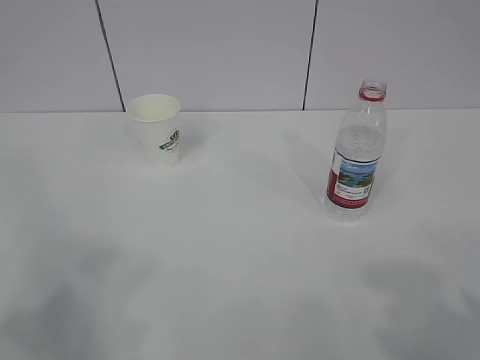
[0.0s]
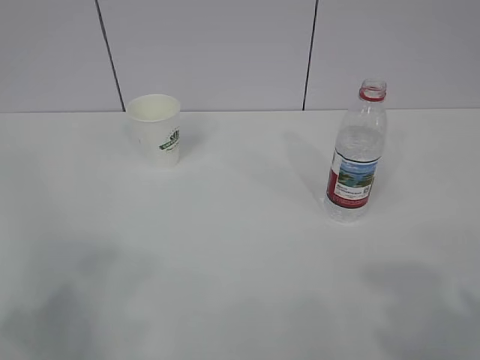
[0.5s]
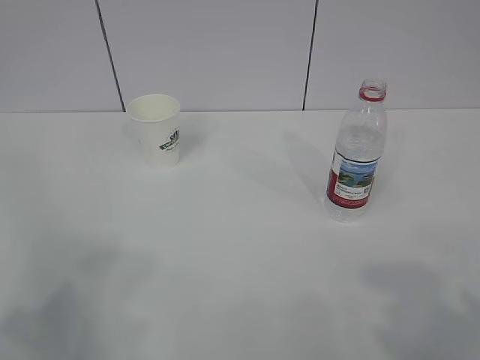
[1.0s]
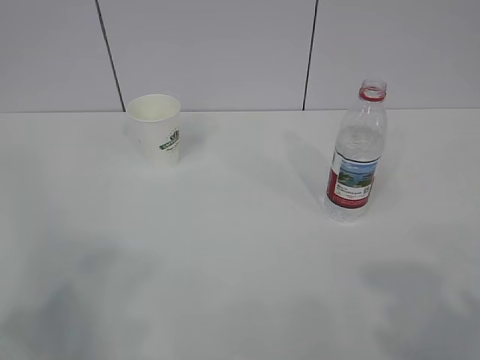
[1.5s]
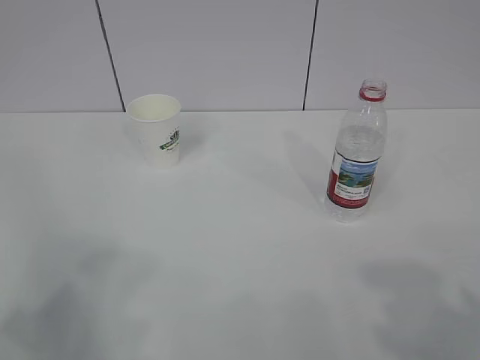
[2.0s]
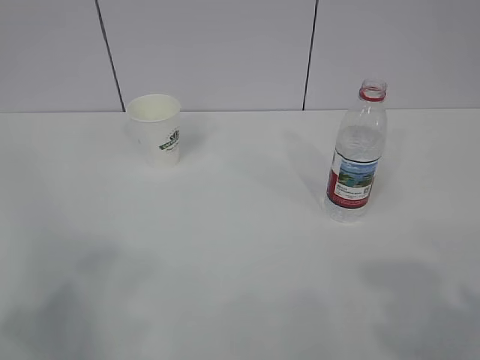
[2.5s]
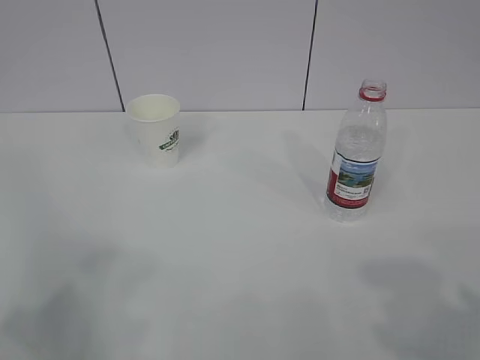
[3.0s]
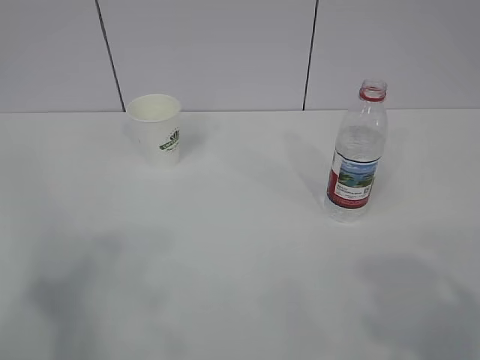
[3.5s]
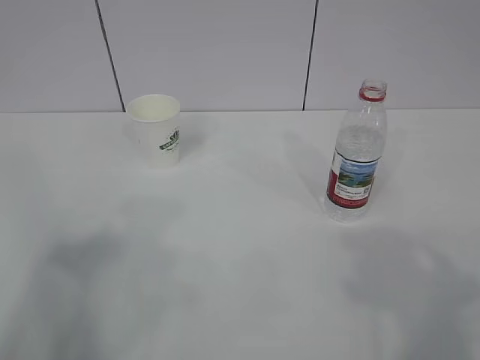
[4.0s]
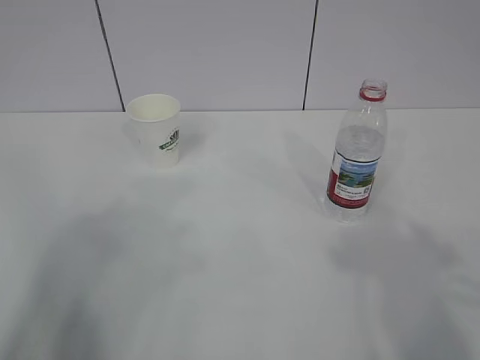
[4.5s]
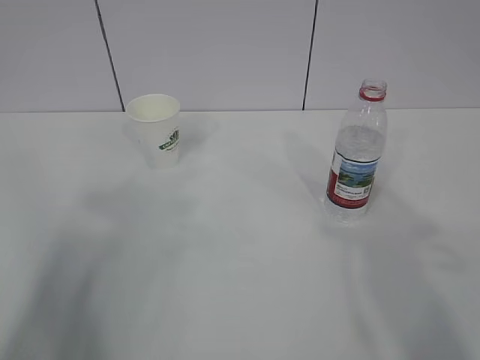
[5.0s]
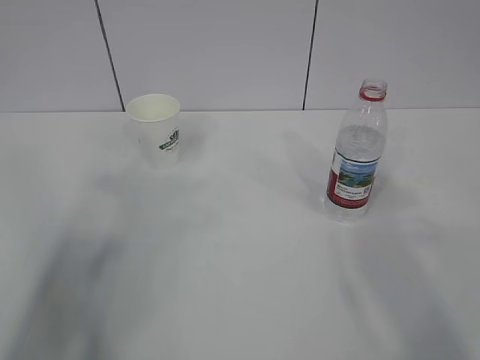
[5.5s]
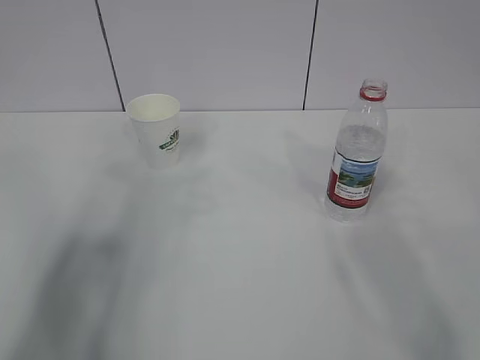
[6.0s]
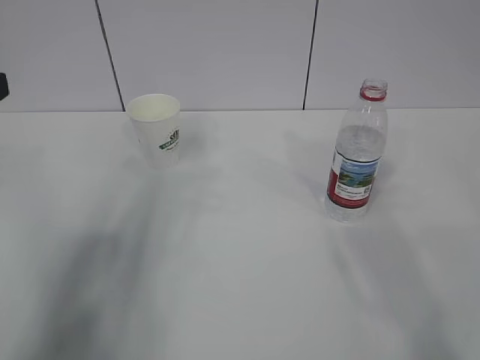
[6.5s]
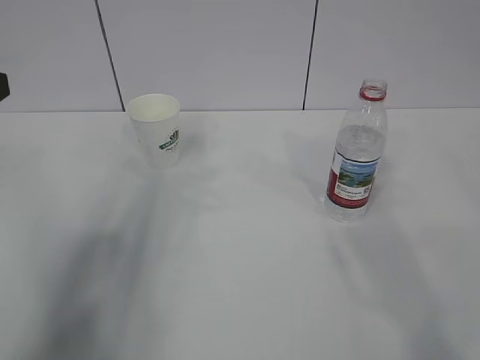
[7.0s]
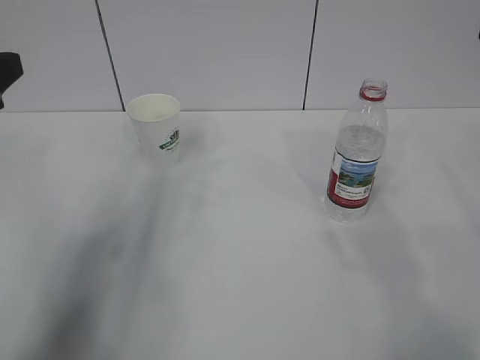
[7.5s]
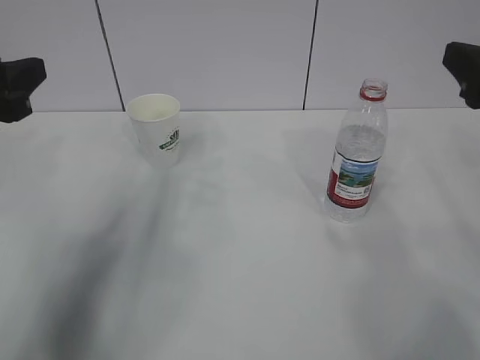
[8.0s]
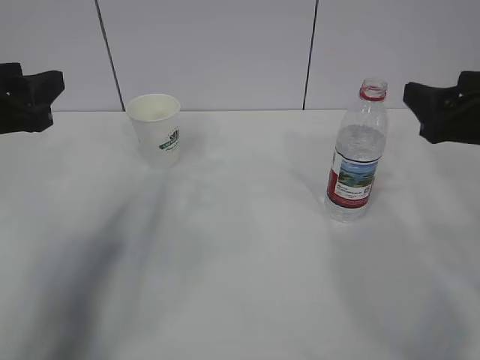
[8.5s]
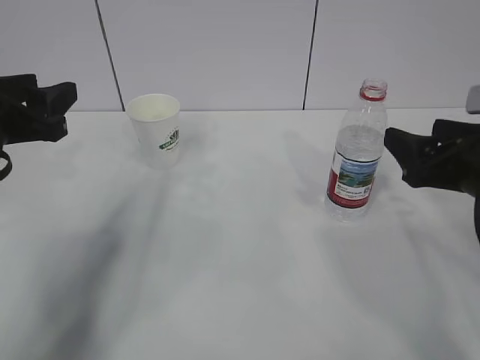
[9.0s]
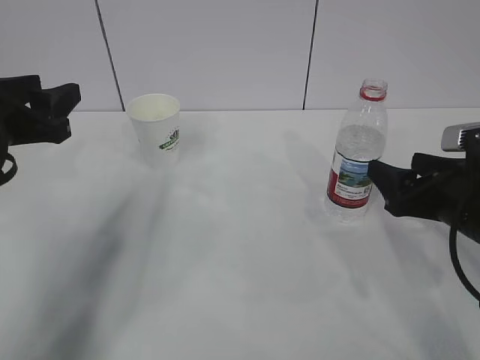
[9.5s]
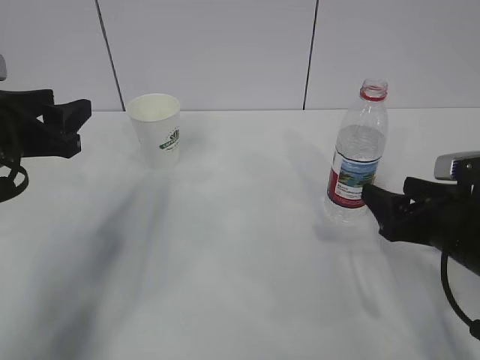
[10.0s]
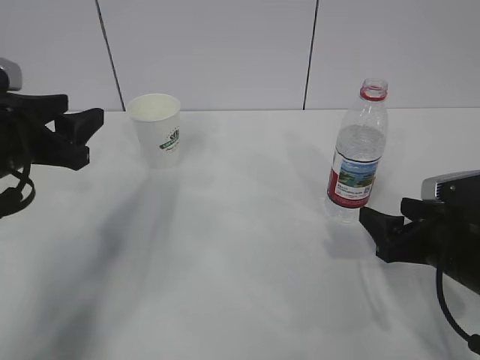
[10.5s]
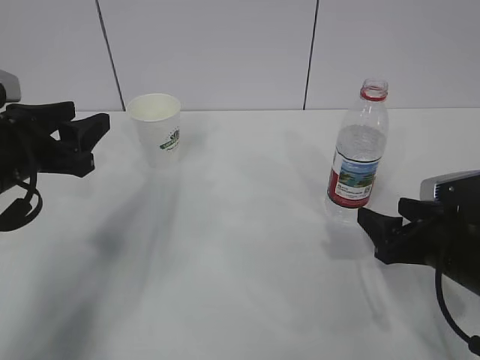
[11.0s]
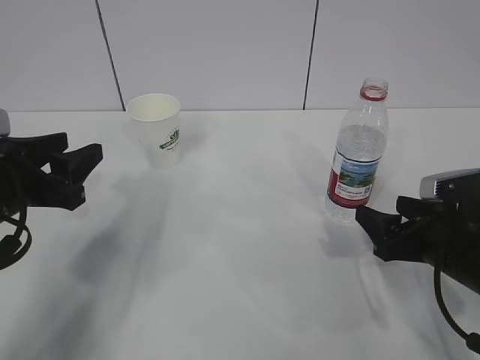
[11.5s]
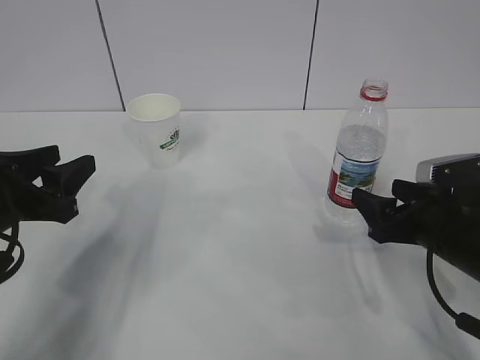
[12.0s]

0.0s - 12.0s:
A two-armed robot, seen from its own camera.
4.0s - 6.0s: The left gripper travels forward by about 15 cm, and opens.
6.0s - 8.0s: Both grippers move forward, some 10 cm.
8.0s - 10.0s: The right gripper is displaced downward by approximately 15 cm. Meanwhile the left gripper is displaced downward by approximately 5 cm.
10.0s - 12.0s: The left gripper moves about 5 cm.

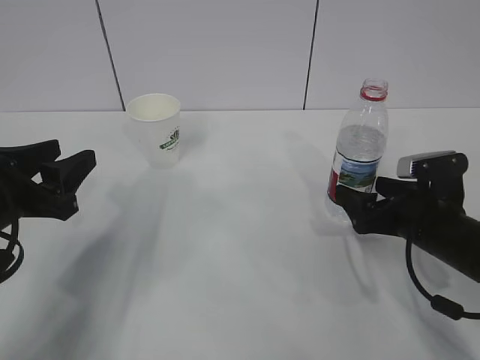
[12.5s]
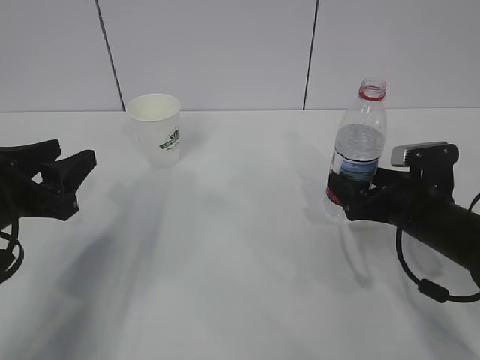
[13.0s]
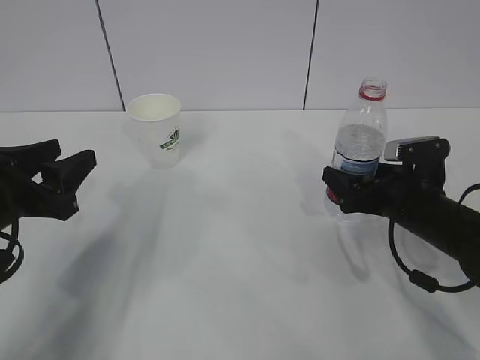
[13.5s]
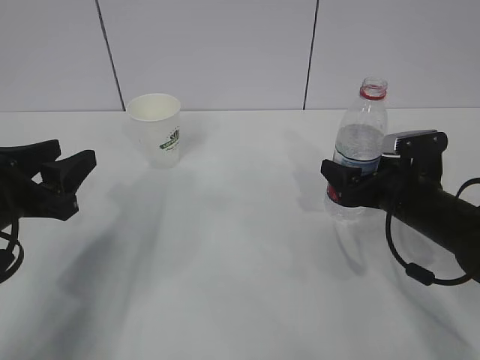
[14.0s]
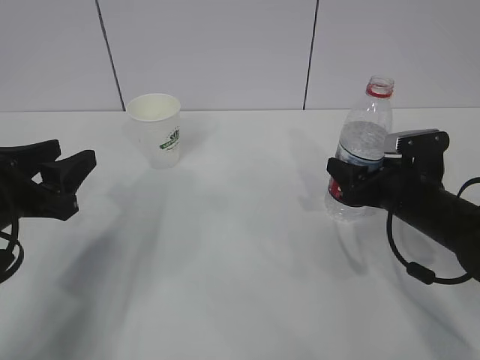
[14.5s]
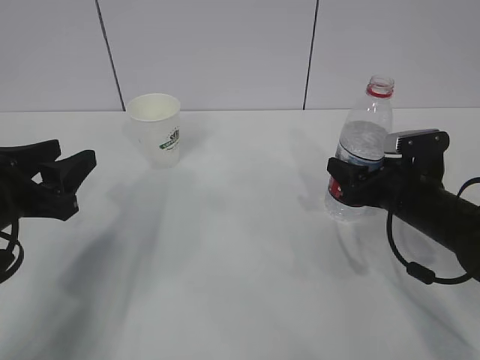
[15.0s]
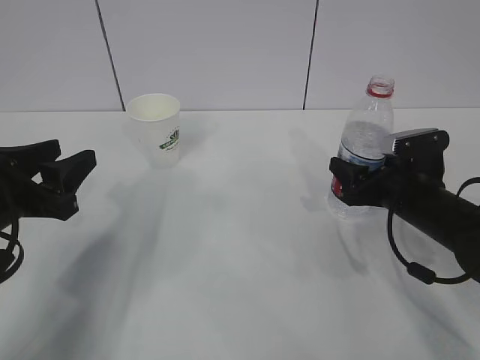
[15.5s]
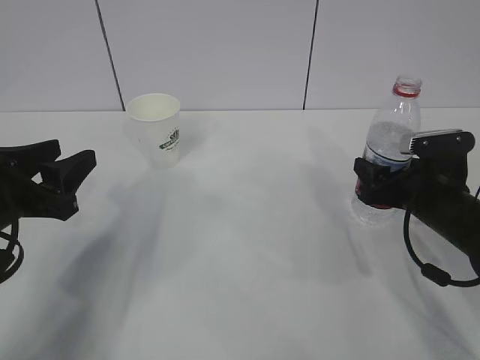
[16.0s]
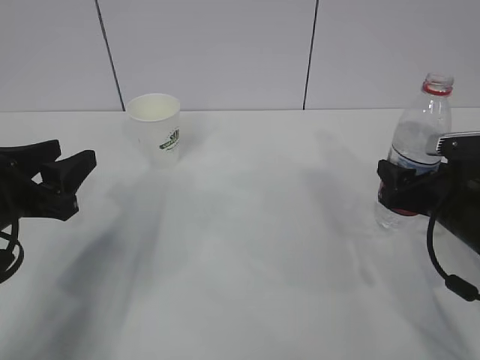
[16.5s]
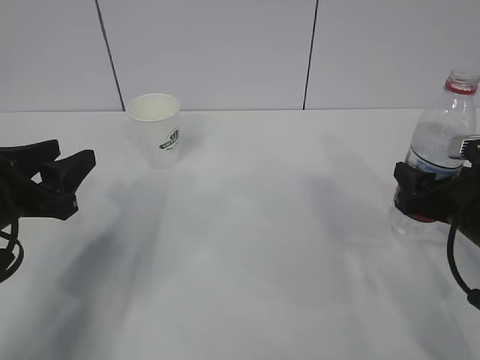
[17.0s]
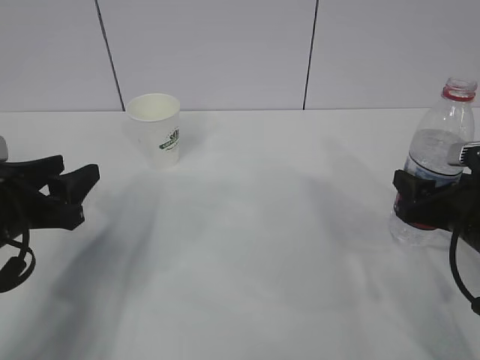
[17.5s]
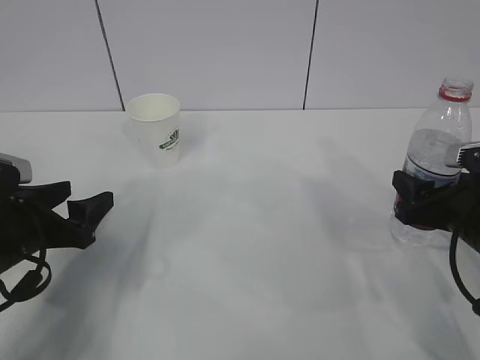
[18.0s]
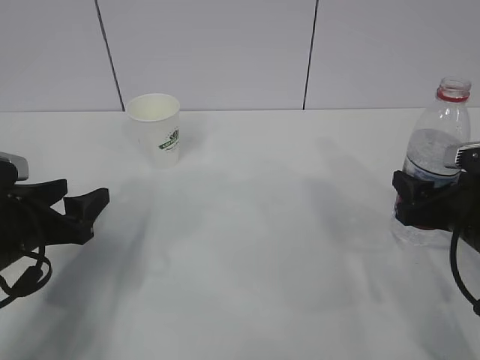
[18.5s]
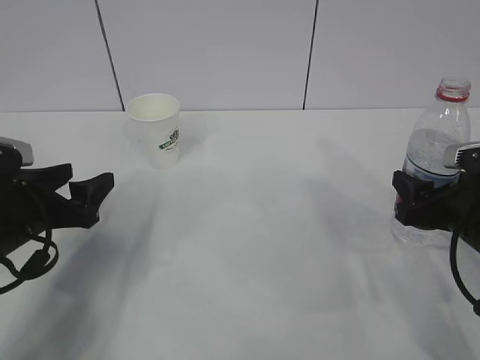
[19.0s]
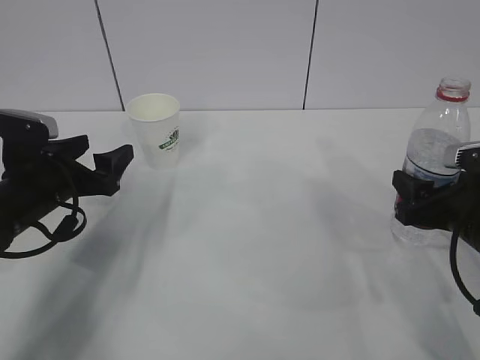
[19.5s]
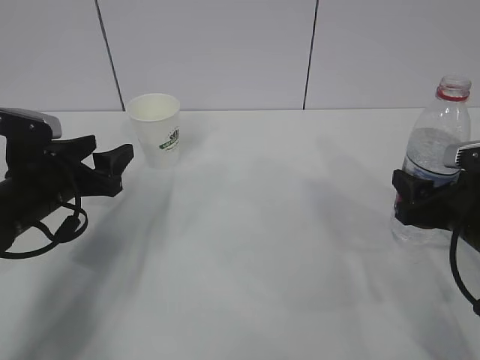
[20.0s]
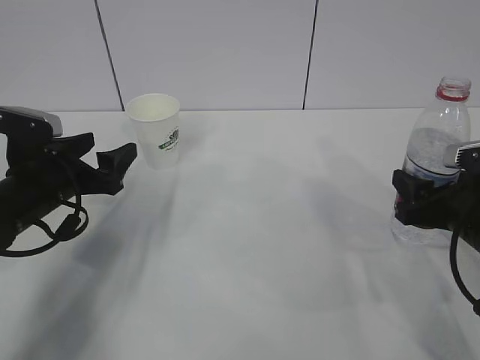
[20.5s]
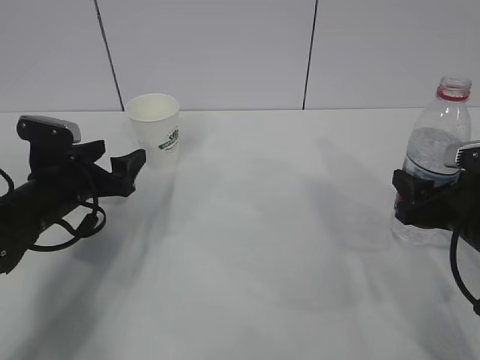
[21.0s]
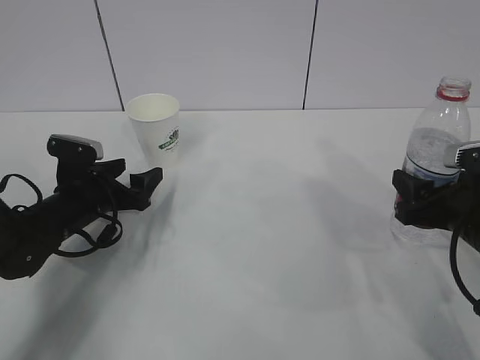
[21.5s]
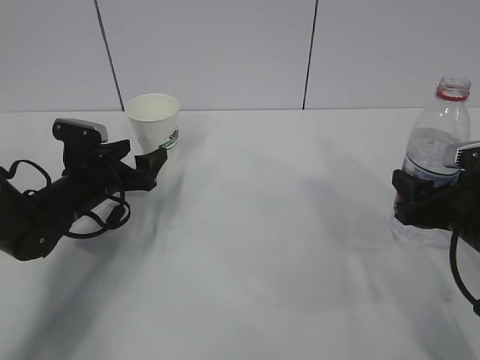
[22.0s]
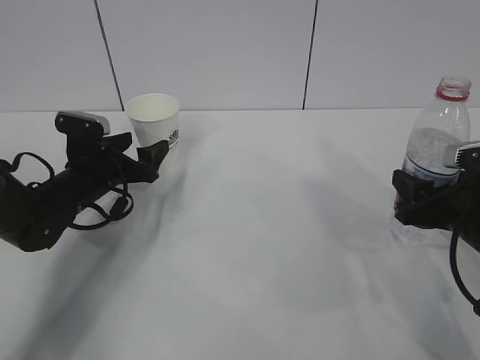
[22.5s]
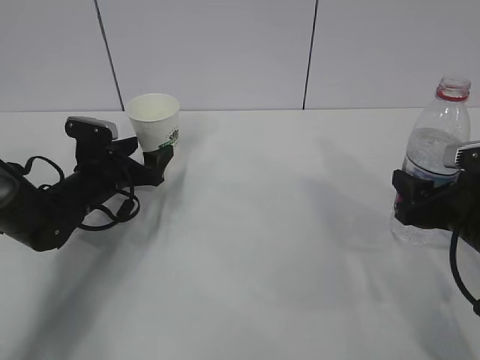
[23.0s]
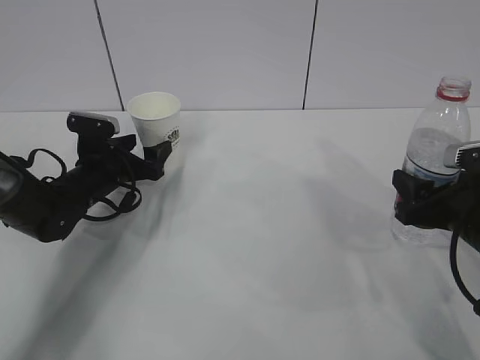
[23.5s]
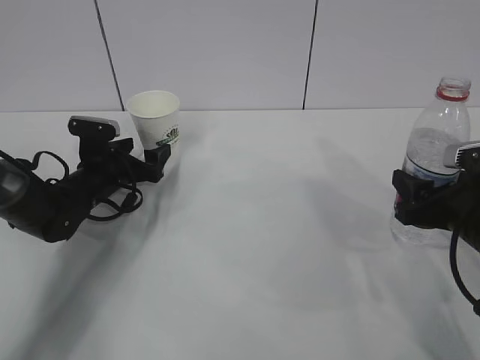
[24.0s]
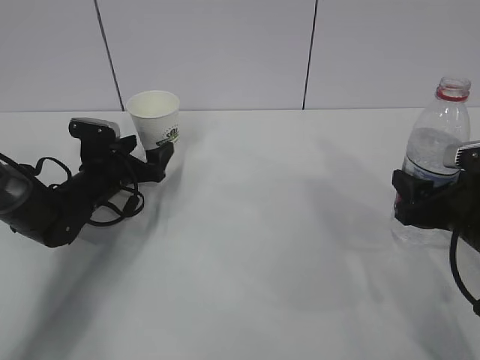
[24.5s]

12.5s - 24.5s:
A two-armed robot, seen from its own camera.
12.5s - 14.5s: The right gripper closes its fingers.
14.5s - 16.5s: The right gripper moves roughly 5 cm.
16.5s - 18.5s: The left gripper is displaced downward by roughly 5 cm.
18.5s - 20.5s: The left gripper goes roughly 5 cm forward.
20.5s - 22.5s: The left gripper is displaced forward and downward by some 10 cm.
22.5s - 24.5s: The grippers stay close to where they were, moving slightly.

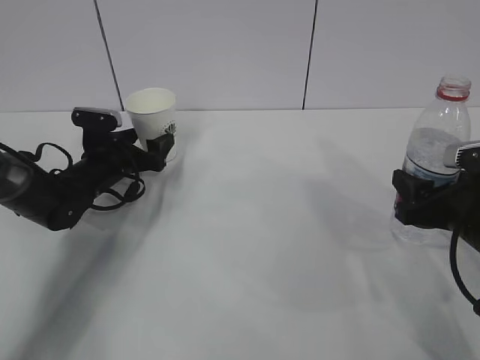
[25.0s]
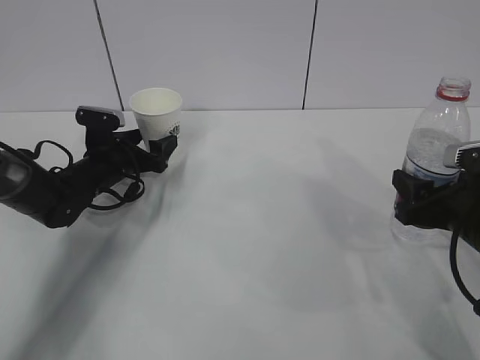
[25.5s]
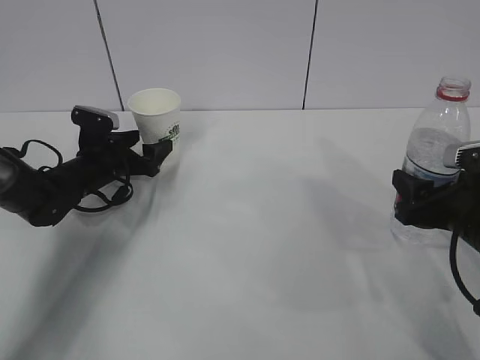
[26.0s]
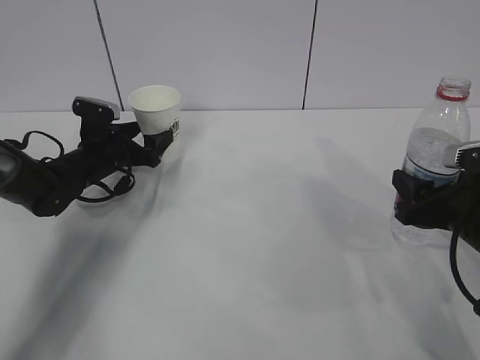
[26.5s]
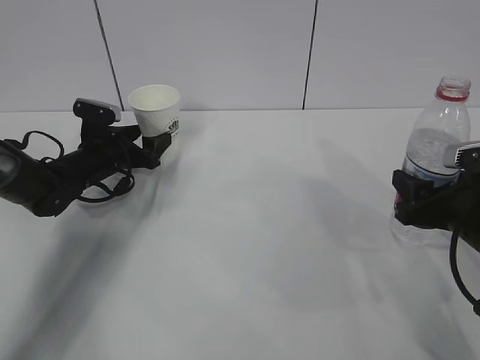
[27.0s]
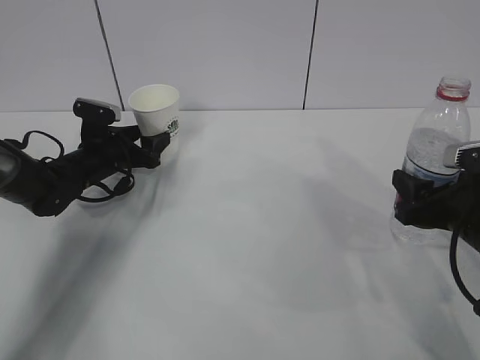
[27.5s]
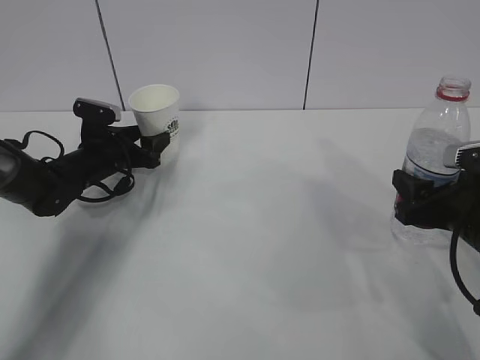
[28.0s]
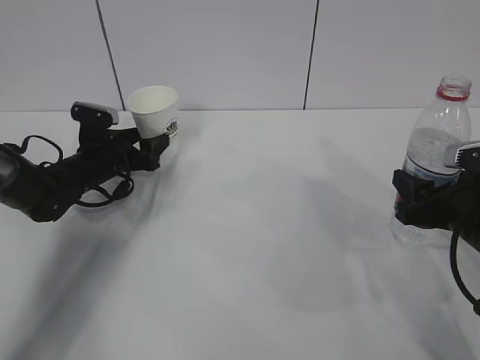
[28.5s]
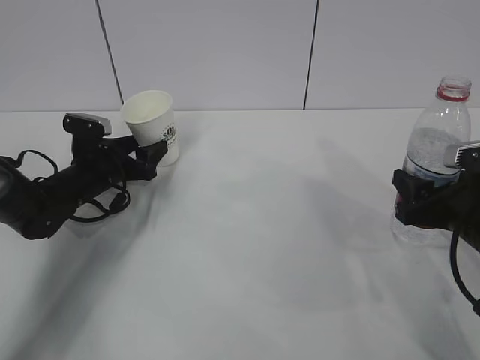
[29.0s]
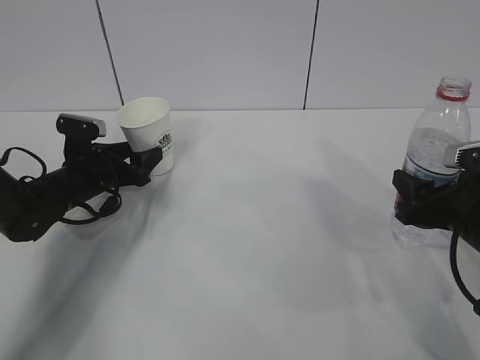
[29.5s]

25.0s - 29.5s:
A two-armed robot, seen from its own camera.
25.0s - 29.5s: The grippers make only small movements.
